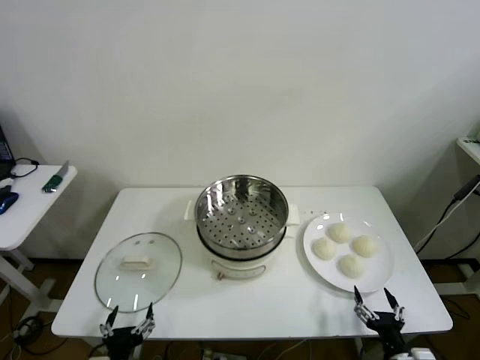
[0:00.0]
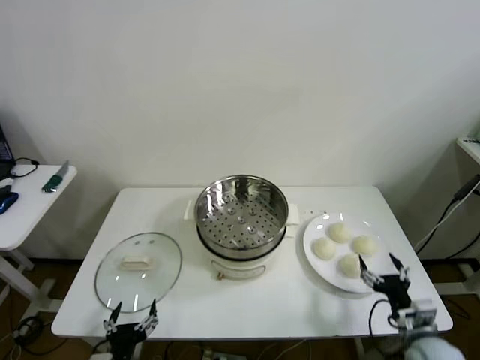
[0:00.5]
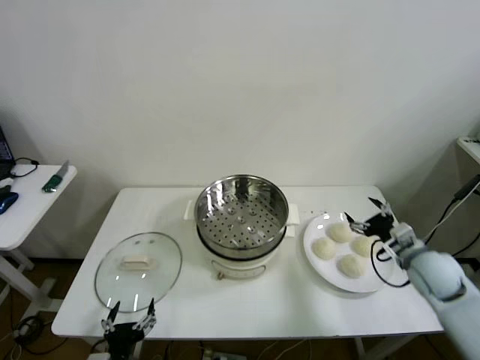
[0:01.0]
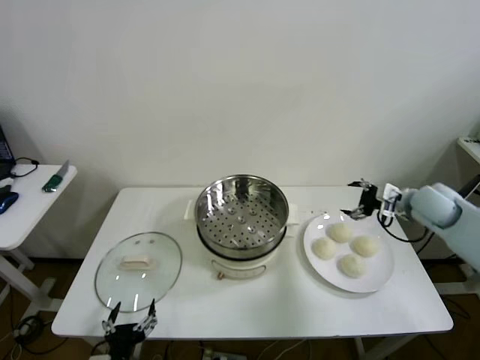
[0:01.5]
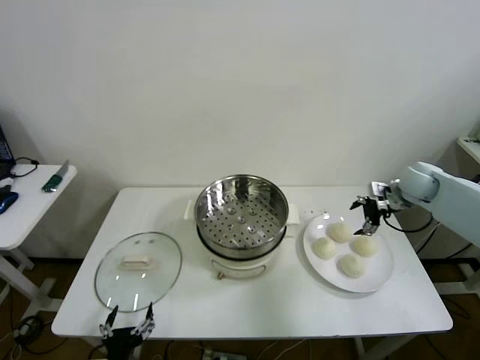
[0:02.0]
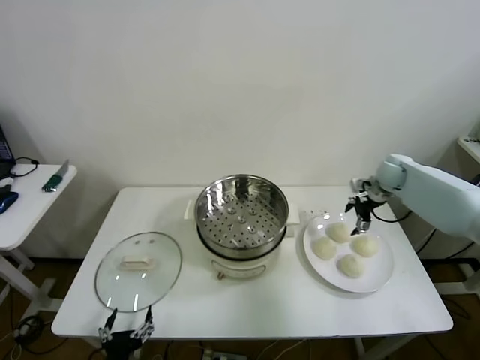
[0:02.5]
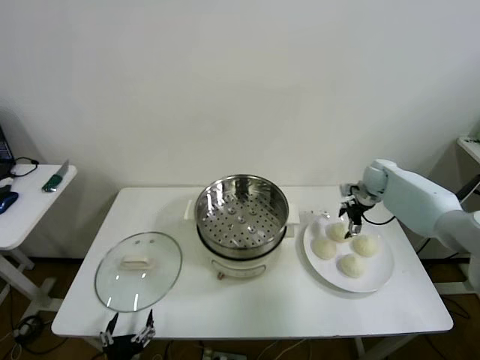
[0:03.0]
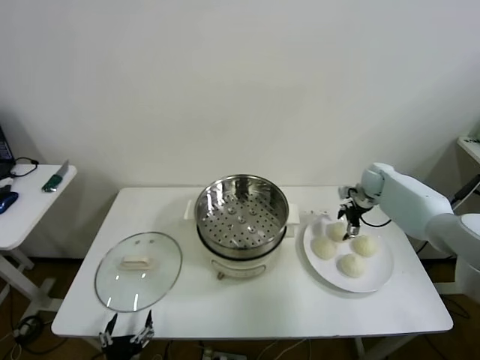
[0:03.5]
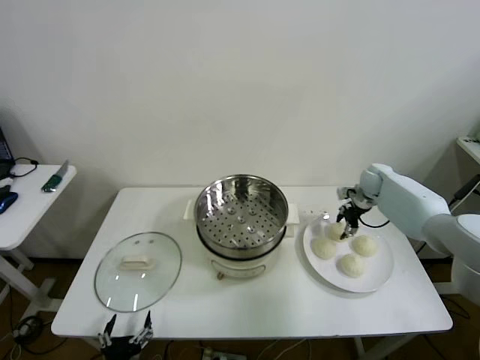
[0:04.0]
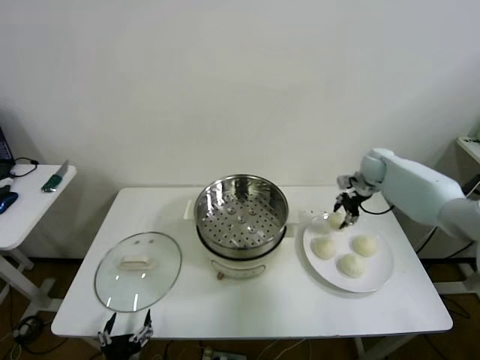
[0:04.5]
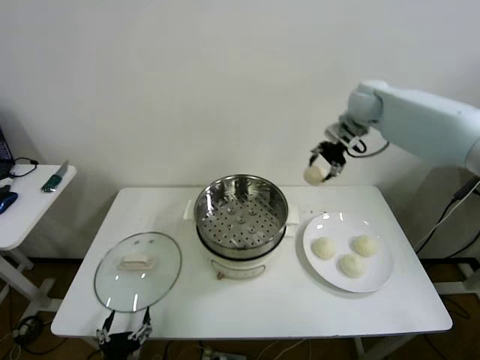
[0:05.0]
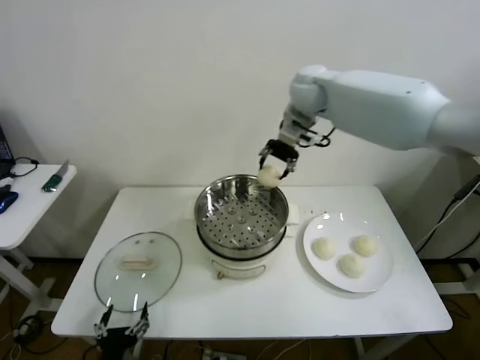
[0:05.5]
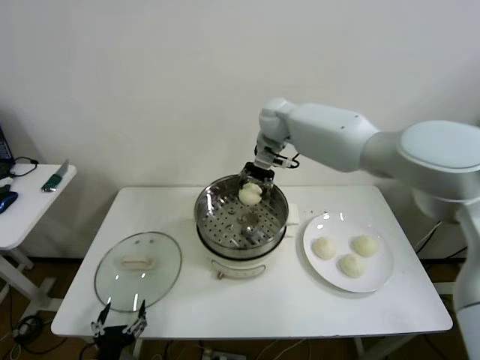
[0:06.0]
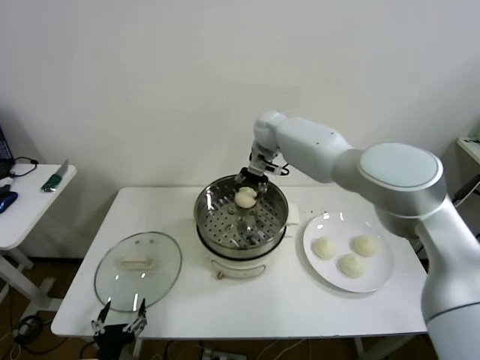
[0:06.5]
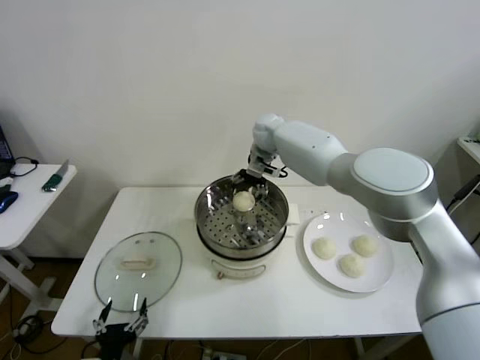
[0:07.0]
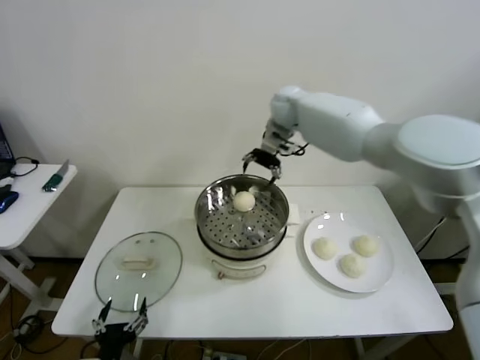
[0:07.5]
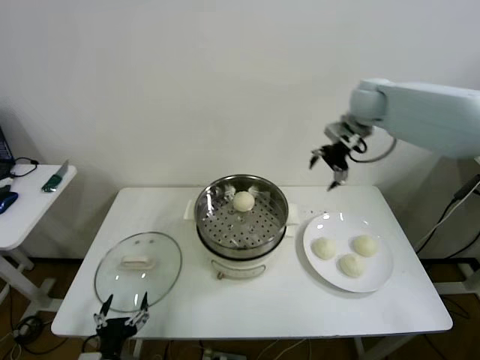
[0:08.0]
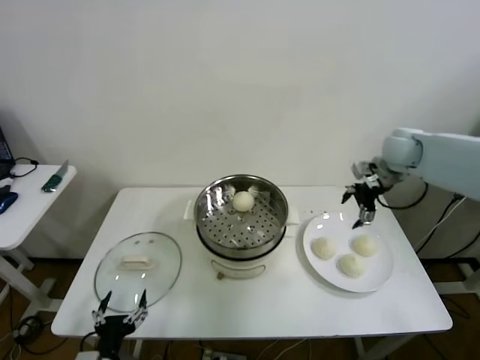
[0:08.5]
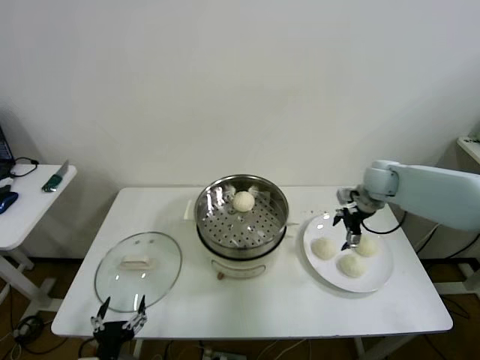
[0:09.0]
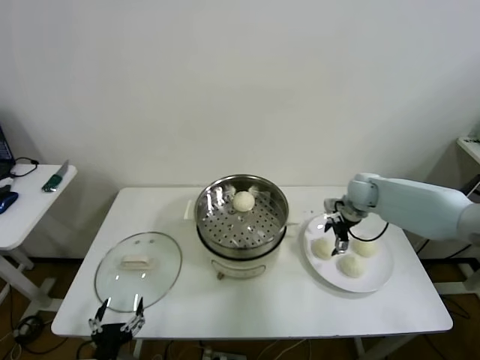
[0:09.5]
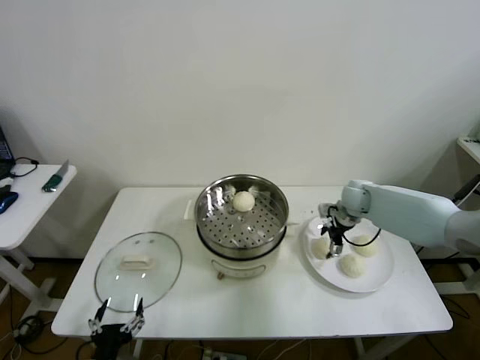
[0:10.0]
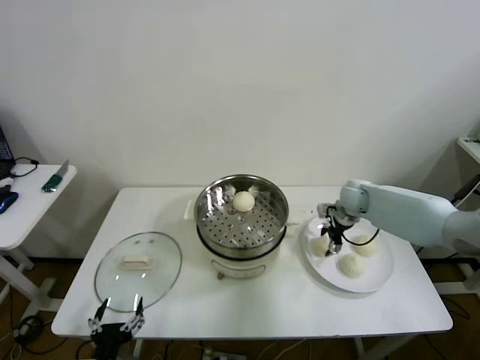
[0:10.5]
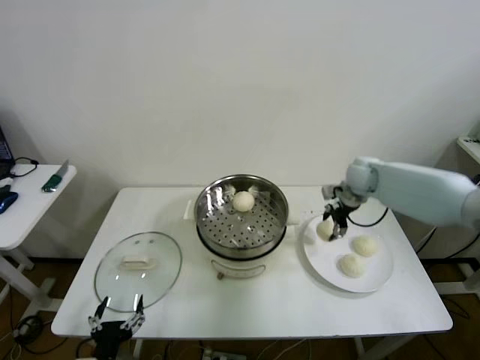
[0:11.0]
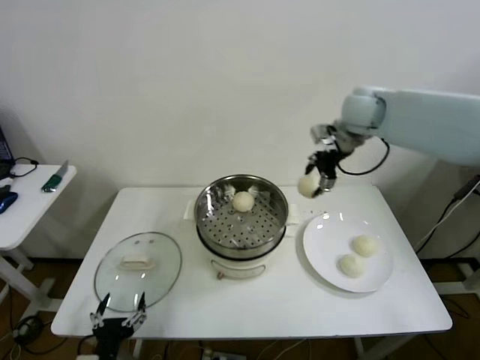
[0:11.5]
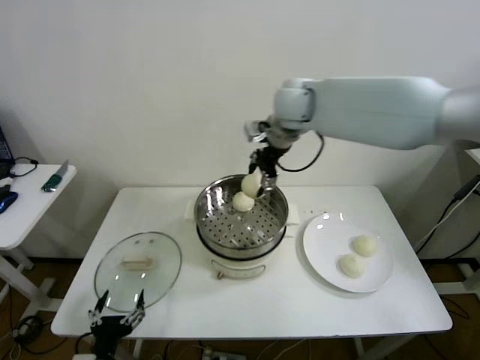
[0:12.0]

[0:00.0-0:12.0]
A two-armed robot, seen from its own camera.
Step, 0:00.0 to 0:03.5: Grasp the baozi in the plate with right gripper.
Step, 0:04.0 to 0:06.5: Place the baozi on the steamer with right gripper.
Step, 0:07.0 to 0:10.5: Grasp the baozi in the plate with right gripper.
0:02.0 to 0:04.0: The right gripper is displaced downward and forward by some 10 cm, and closes.
0:04.0 to 0:06.0: The right gripper heads to the left and upward, covering approximately 35 cm.
0:06.0 to 0:08.0: The right gripper heads to the right, covering roughly 25 cm, and opens.
0:08.0 to 0:10.0: The right gripper shifts roughly 25 cm downward.
0:10.0 to 0:12.0: The right gripper moves upward and to the left, about 35 cm, and closes.

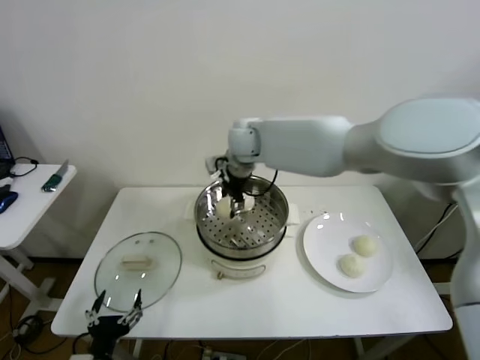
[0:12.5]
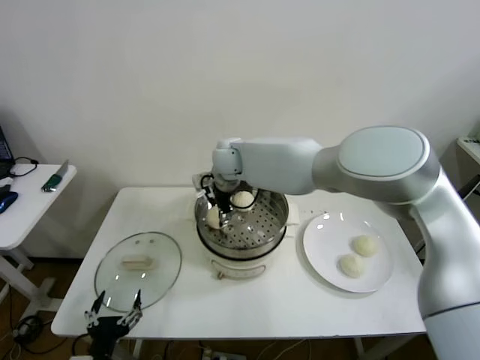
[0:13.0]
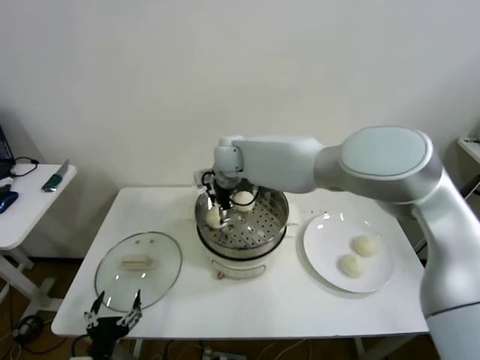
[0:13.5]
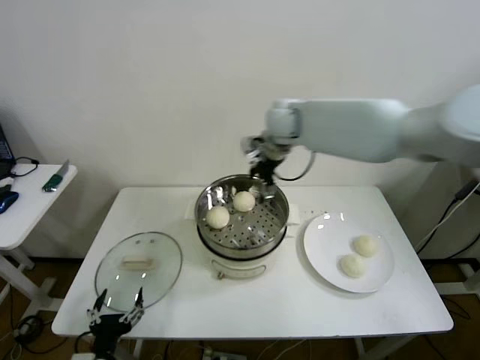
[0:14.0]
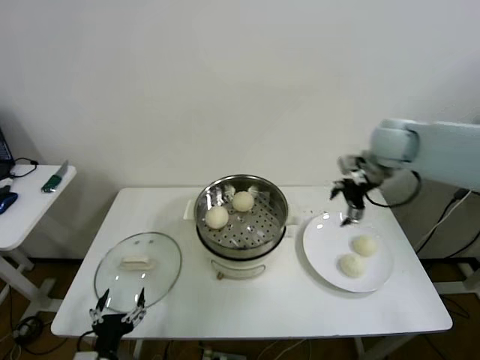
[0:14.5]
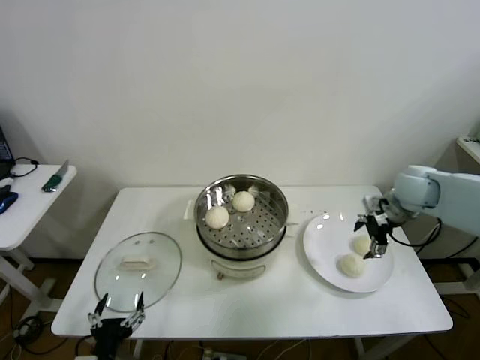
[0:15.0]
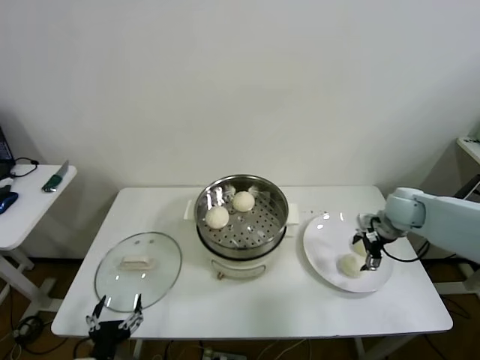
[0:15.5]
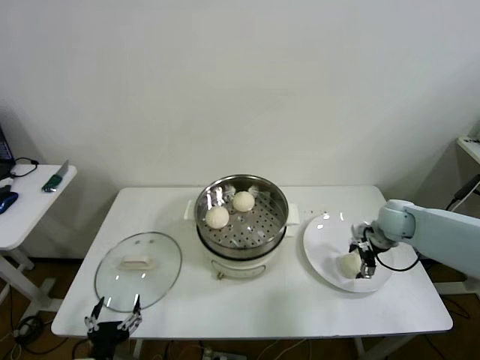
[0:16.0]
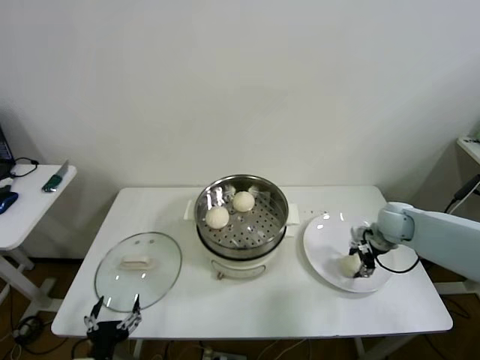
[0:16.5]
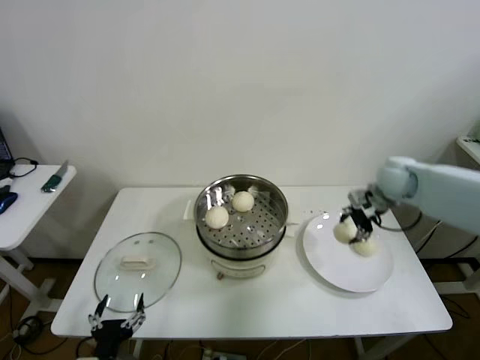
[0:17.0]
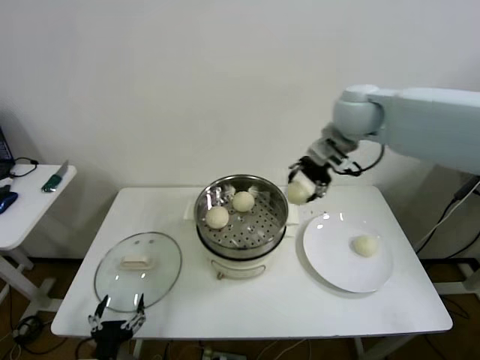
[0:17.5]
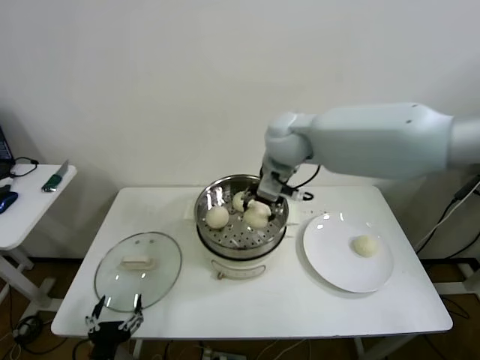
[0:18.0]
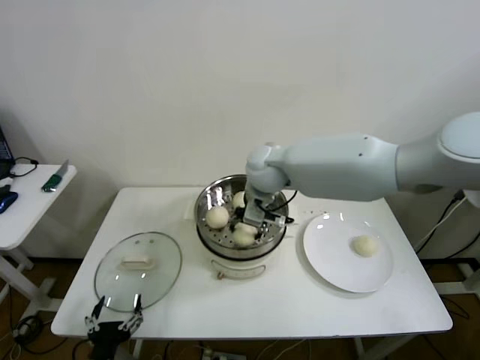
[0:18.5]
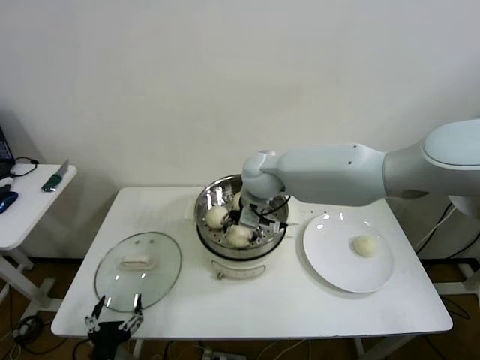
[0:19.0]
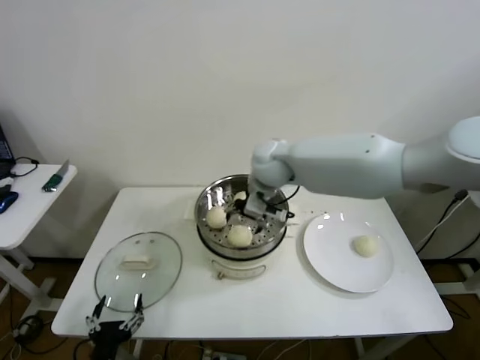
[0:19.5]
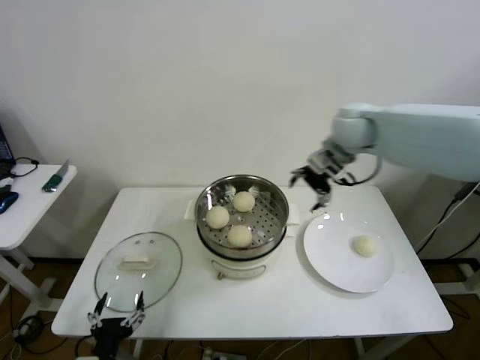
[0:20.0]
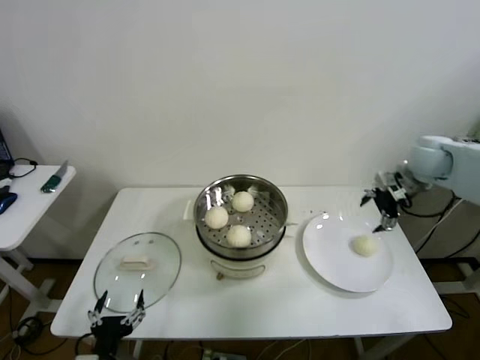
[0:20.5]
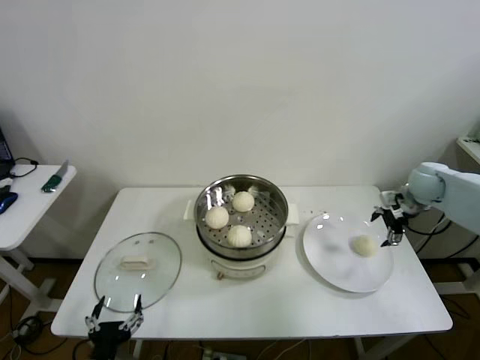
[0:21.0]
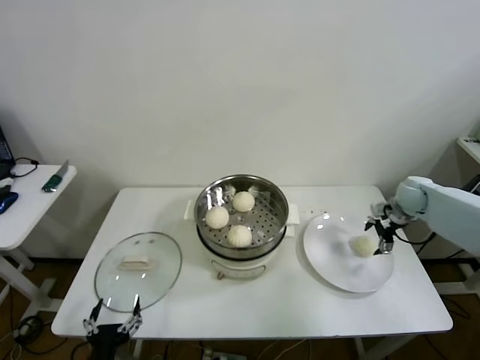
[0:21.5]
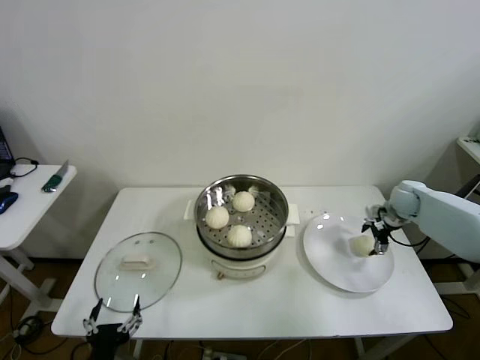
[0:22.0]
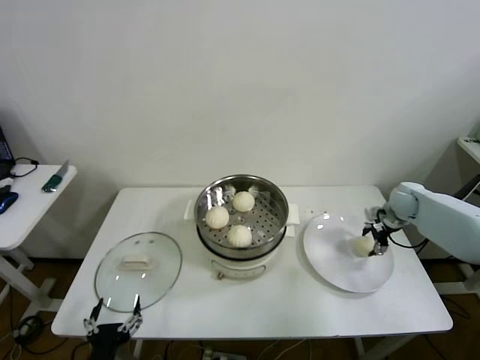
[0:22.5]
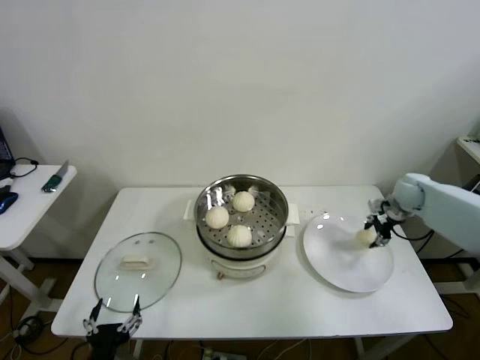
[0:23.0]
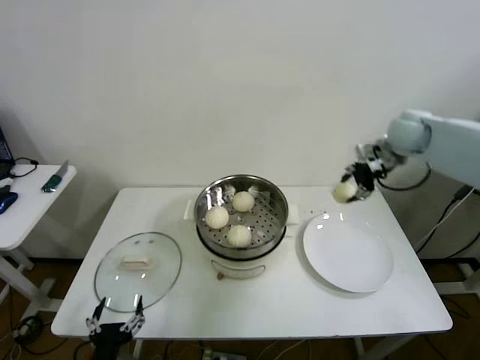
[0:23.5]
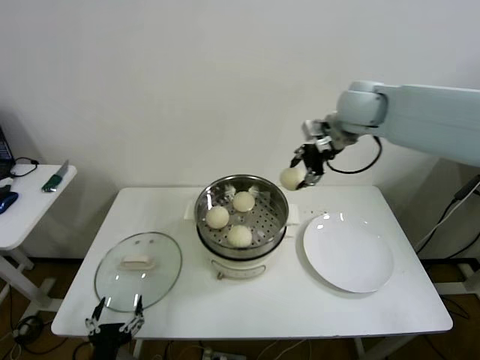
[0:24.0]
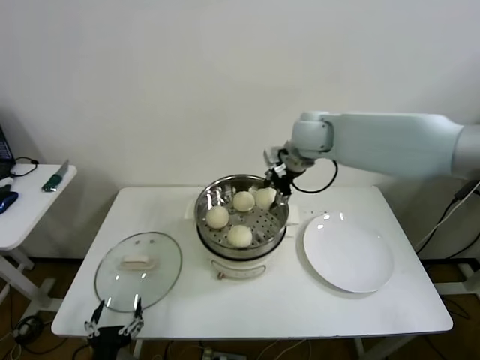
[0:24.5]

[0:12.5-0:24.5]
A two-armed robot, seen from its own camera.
Step, 0:13.5 to 0:16.0: Grasp the baozi in the plate with right gripper.
Step, 0:17.0 to 0:19.0: Place the baozi on the steamer with right gripper.
Step, 0:19.5 to 0:22.5: Grasp the baozi in the plate with right gripper.
0:12.5 to 0:14.5: The right gripper travels to the right by roughly 35 cm, and opens its fingers.
0:14.5 to 0:16.5: The right gripper travels downward by about 20 cm, and closes its fingers.
0:16.5 to 0:18.5: The right gripper moves to the left and upward, about 35 cm.
0:18.5 to 0:20.5: The right gripper shifts approximately 35 cm to the right, and opens up.
0:20.5 to 0:22.5: The right gripper shifts some 15 cm downward, and closes.
0:22.5 to 0:24.5: The right gripper heads to the left and upward, covering some 35 cm, and closes.

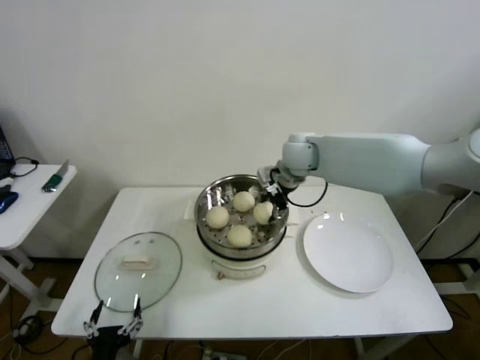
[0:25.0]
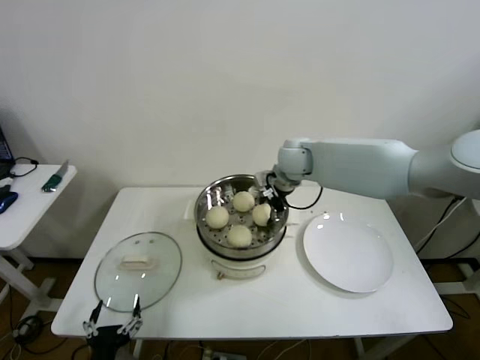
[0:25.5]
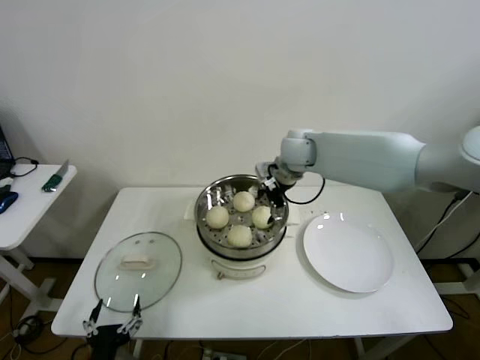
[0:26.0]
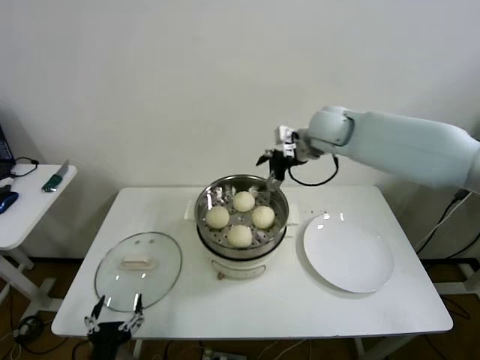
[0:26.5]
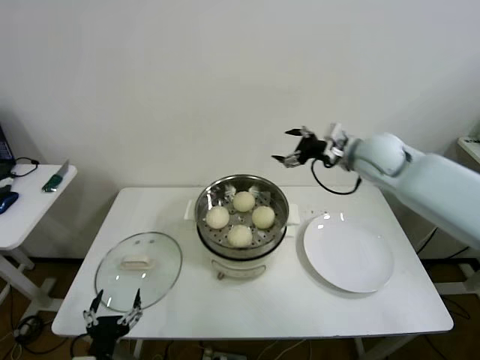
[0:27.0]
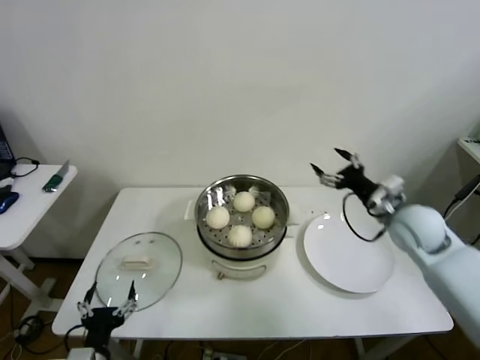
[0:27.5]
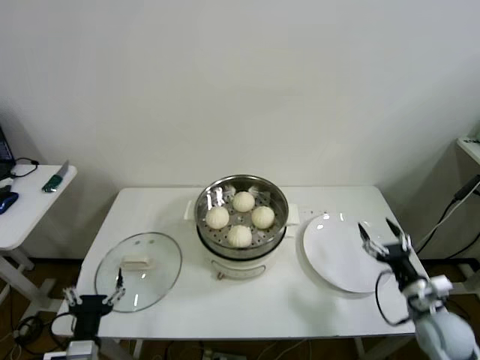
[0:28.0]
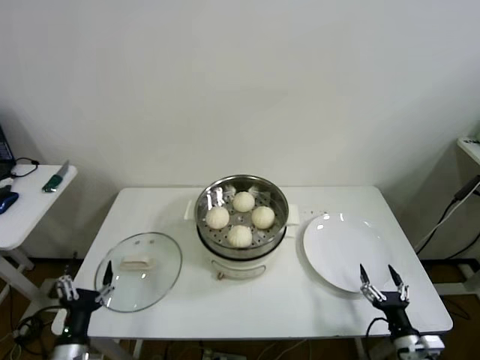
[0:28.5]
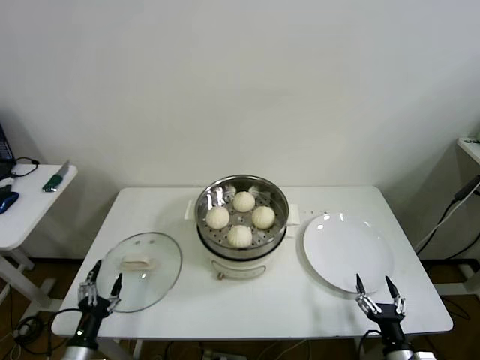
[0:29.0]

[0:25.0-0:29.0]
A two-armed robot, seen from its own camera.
0:25.0 to 0:27.0: The right gripper is displaced to the right by roughly 15 cm, and opens up.
0:27.0 to 0:29.0: The left gripper moves to the left and downward, roughly 10 cm; the right gripper goes some 50 cm backward and downward.
